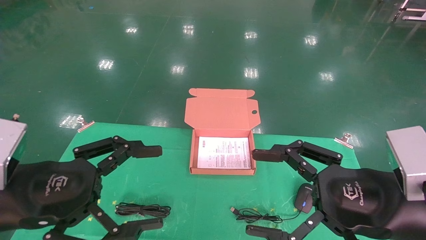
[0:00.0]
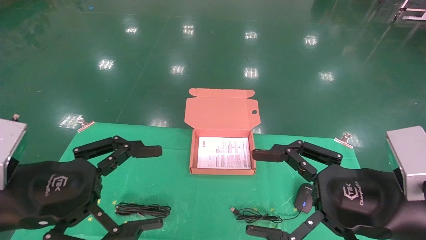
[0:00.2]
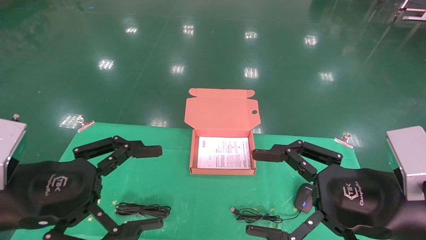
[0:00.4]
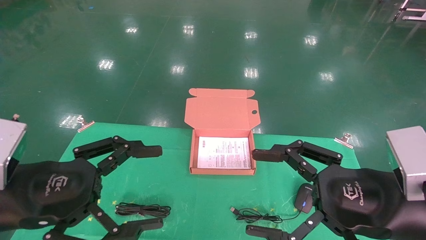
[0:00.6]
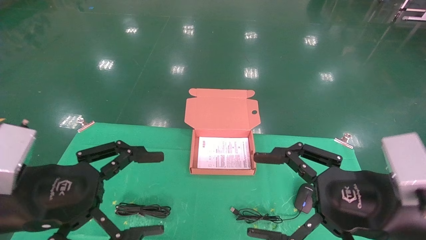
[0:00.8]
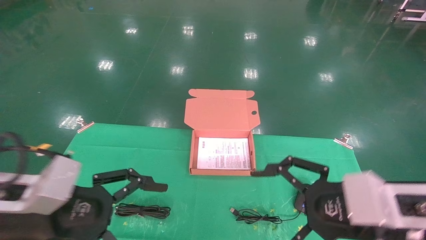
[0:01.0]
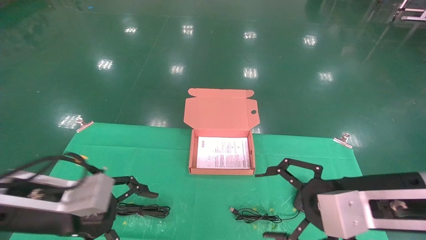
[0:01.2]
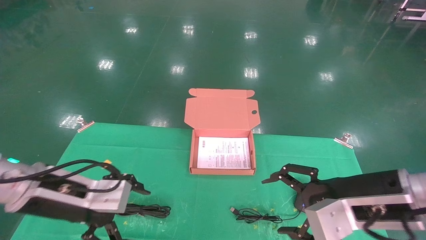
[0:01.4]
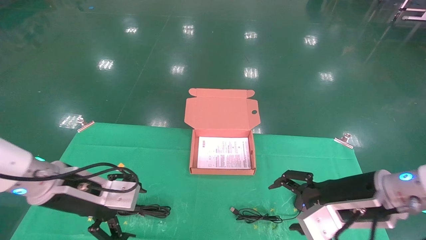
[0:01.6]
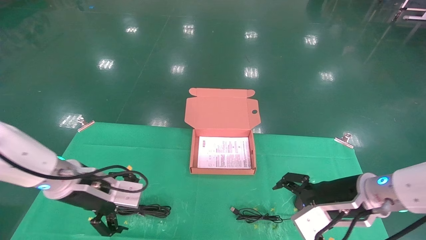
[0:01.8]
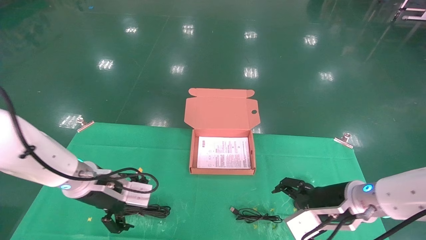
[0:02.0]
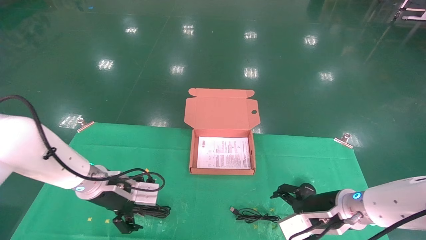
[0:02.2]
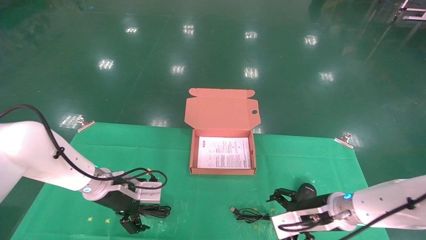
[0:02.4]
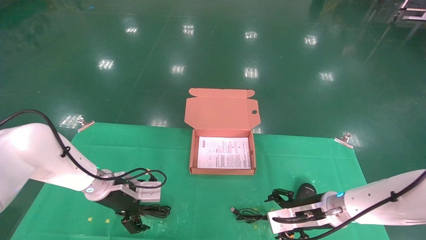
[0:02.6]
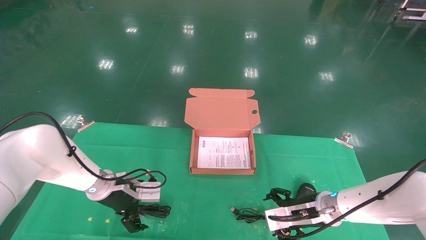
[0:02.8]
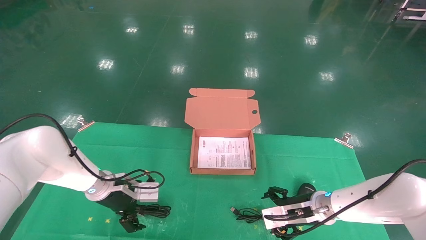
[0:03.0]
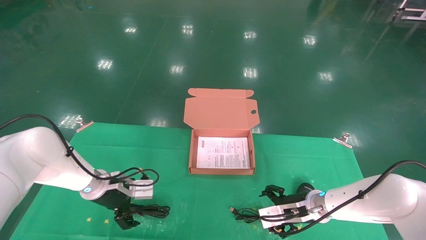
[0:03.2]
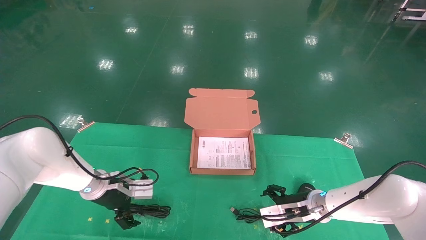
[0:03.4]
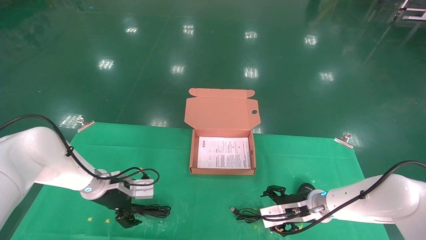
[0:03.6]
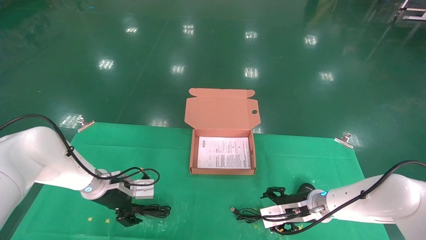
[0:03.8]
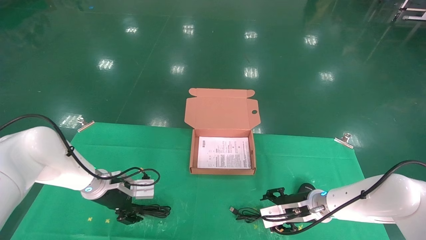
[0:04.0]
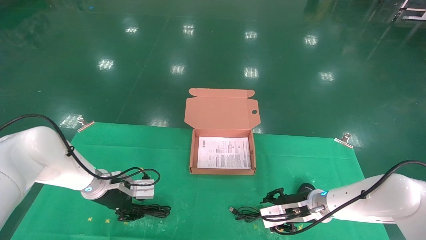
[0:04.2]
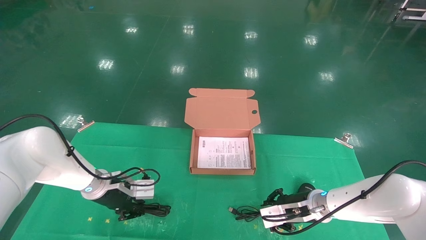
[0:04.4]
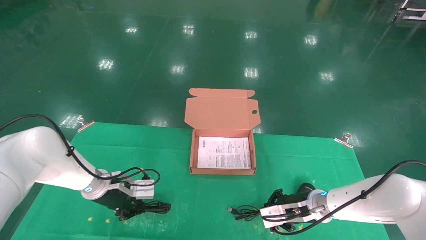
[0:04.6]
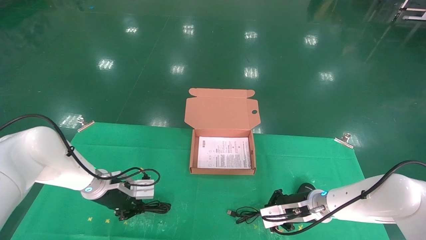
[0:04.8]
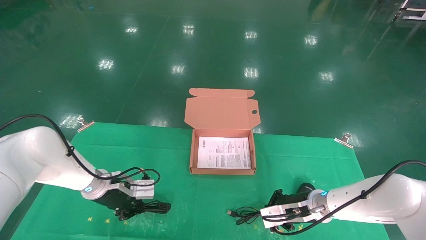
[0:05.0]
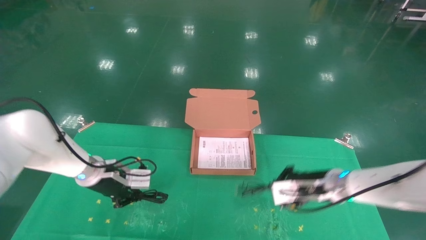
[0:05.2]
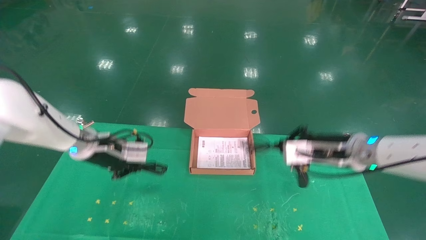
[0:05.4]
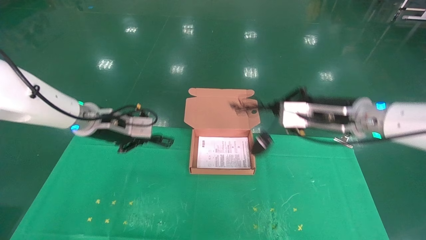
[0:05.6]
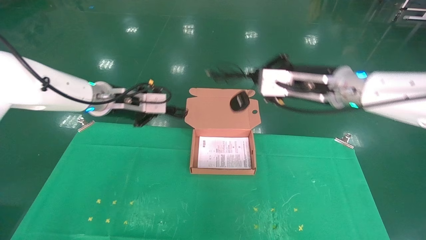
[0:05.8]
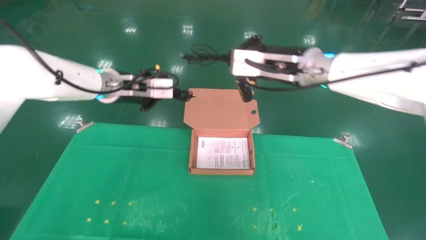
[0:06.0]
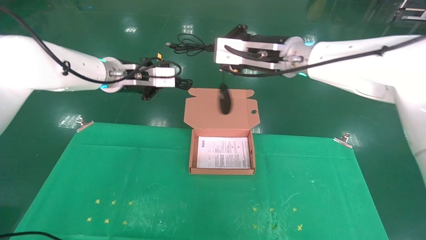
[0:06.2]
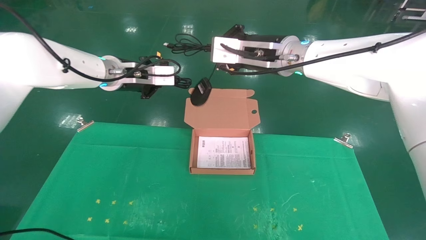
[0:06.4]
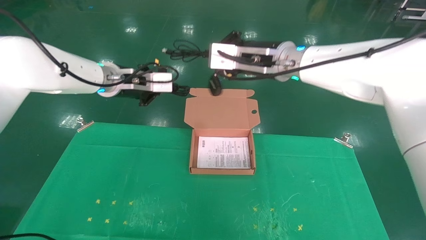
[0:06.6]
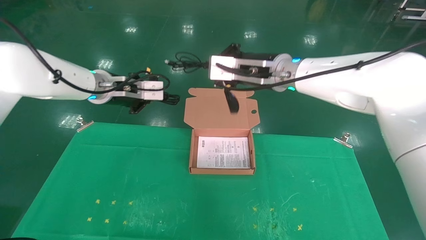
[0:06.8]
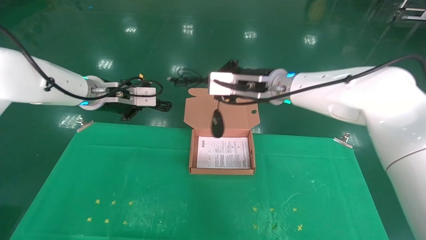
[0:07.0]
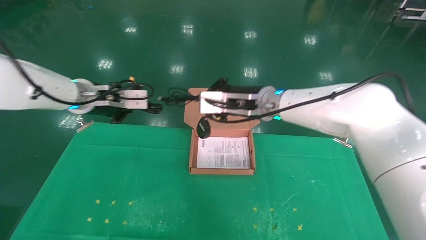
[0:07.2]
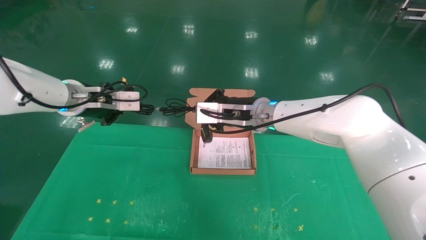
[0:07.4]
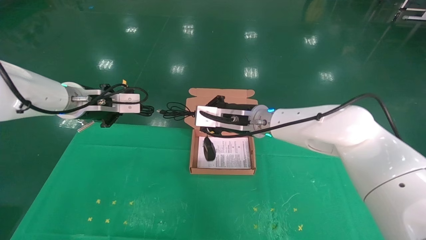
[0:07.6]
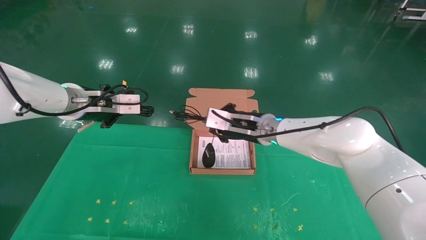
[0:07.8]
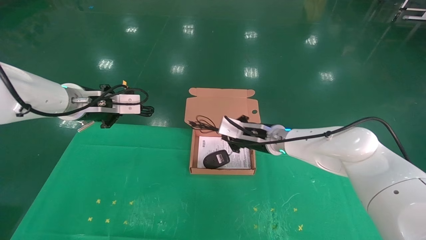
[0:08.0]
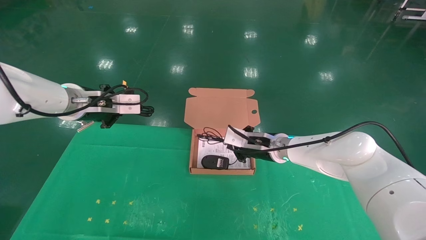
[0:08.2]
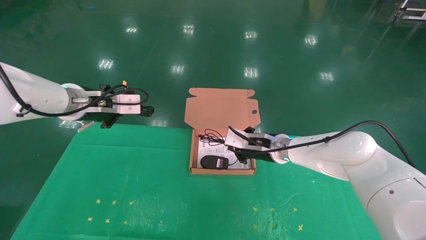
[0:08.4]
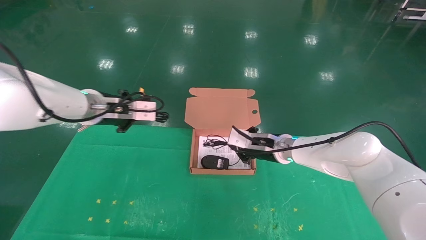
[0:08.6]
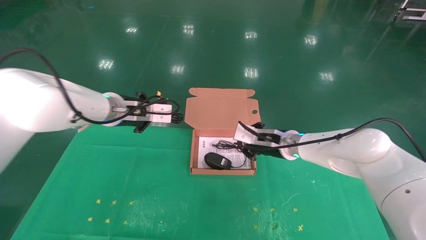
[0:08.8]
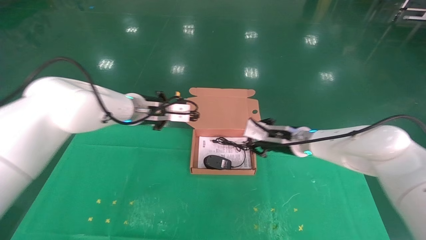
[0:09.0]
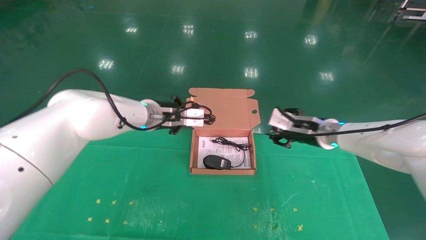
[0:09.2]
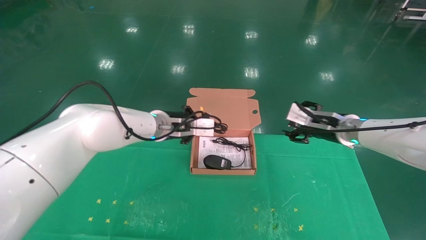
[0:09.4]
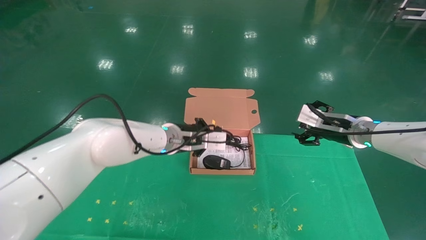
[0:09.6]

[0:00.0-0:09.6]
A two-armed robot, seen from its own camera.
Task of the whole recording: grasp data cable left put into box grasp mouse right put into box.
Step, 0:01.4 to 0:05.0: Grab and pick up both the mouse and power cord from the accessory packaging area at the same time.
0:00.0 to 0:01.6: The right gripper is displaced forward by approximately 10 cm; the left gripper travels forward and downward by some 10 cm.
0:01.6 to 0:03.2: Both grippers travel together forward and downward, some 20 cm.
0:03.2 to 0:04.8: The left gripper closes its fingers; the right gripper closes up.
0:04.8 to 0:06.4: Both grippers move upward, approximately 30 cm.
0:06.4 to 0:08.0: The right gripper moves downward, about 20 cm. Meanwhile the left gripper is displaced to the left and backward by some 10 cm.
0:08.0 to 0:09.6: The left gripper is displaced to the right and downward by some 20 cm, while the right gripper moves to the right, approximately 20 cm, and opens its fingers.

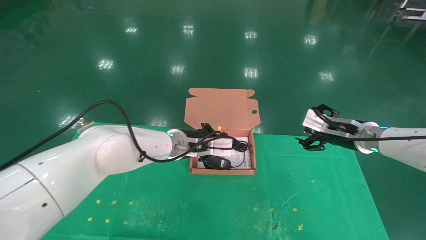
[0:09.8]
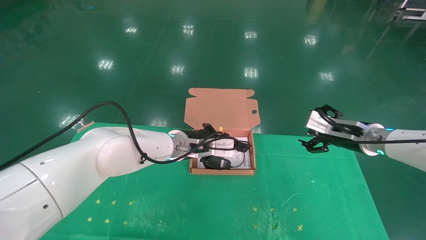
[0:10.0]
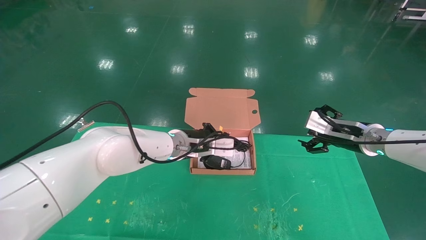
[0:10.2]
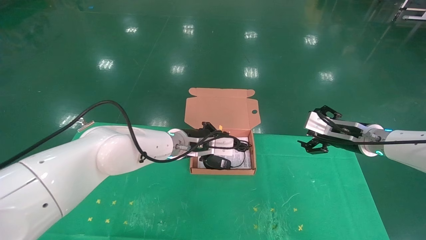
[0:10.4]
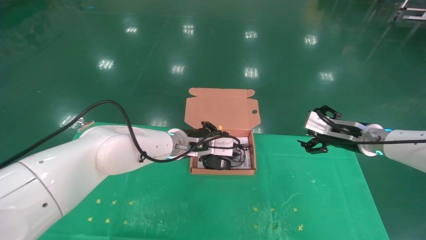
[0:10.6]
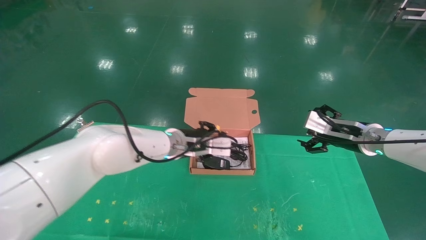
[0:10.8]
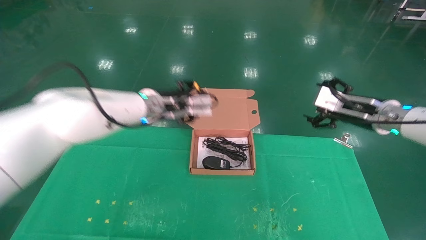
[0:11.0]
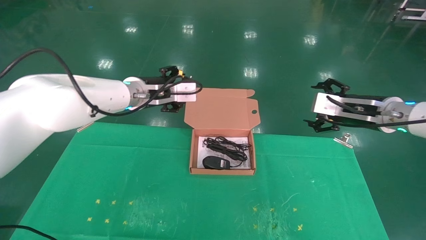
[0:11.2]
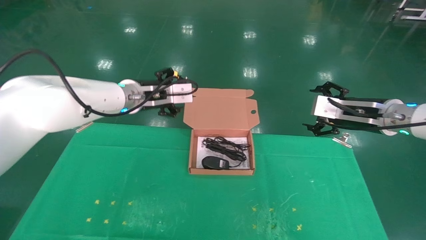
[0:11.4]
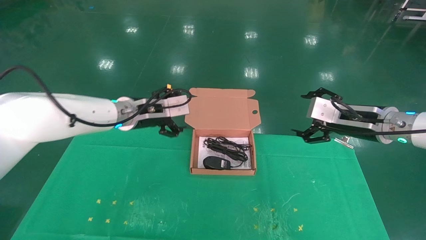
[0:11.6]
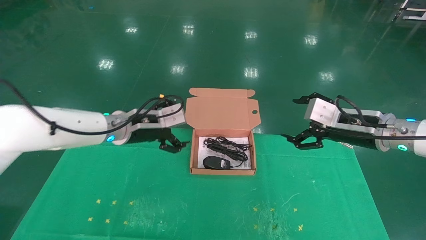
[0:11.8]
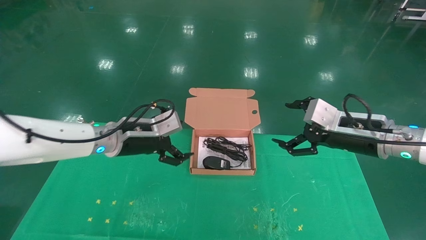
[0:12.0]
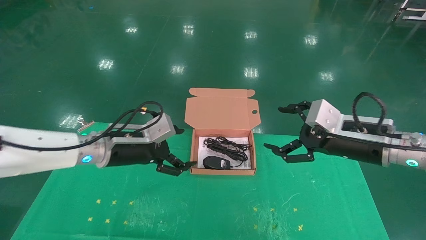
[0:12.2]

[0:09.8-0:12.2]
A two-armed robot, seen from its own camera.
Task of the whole recording: grasp data cable left put into box grasp mouse right put into box.
0:09.8 to 0:11.0: The left gripper goes some 10 cm upward and to the left, and opens its fingers, while the right gripper changes place by roughly 5 cm.
0:11.0 to 0:12.2: The right gripper travels backward and to the left by roughly 10 cm, while the left gripper moves backward, to the left and downward, approximately 15 cm, and opens.
